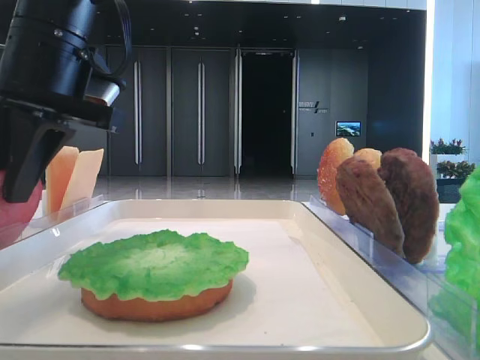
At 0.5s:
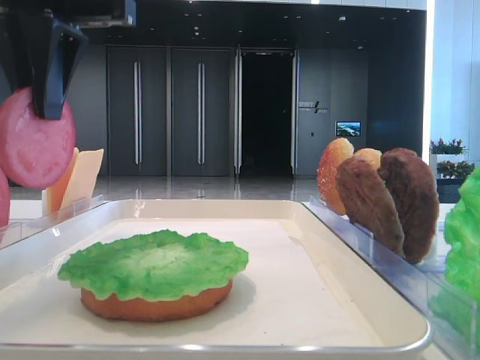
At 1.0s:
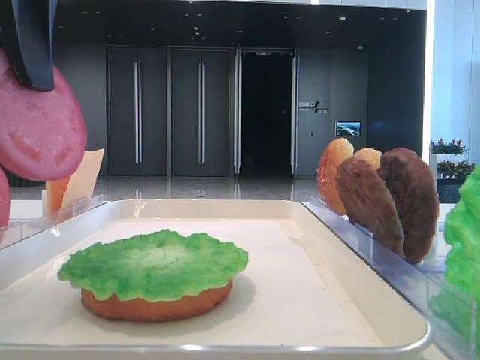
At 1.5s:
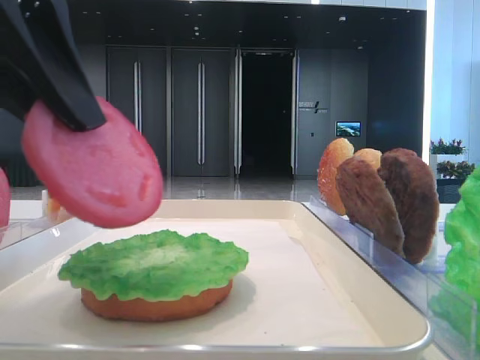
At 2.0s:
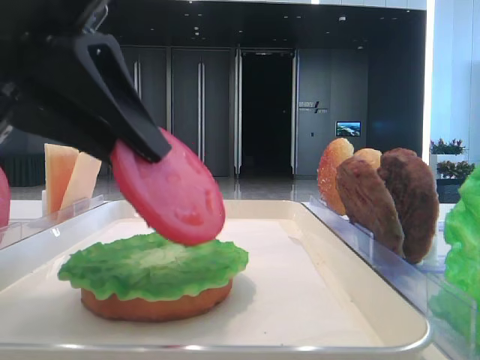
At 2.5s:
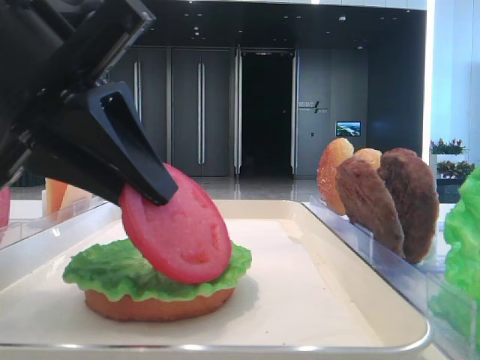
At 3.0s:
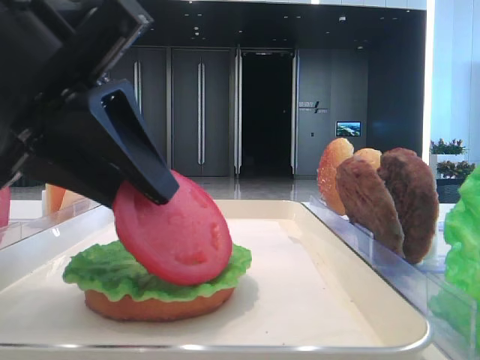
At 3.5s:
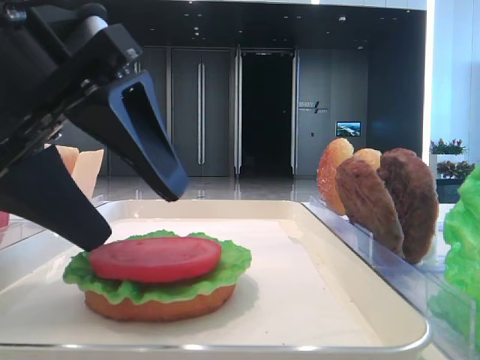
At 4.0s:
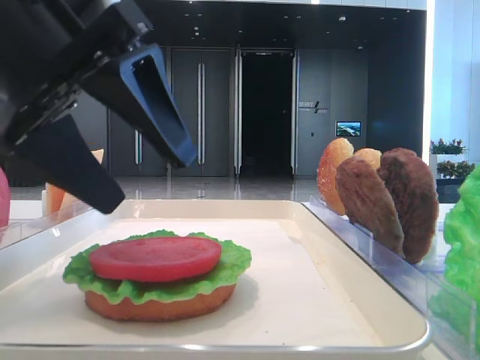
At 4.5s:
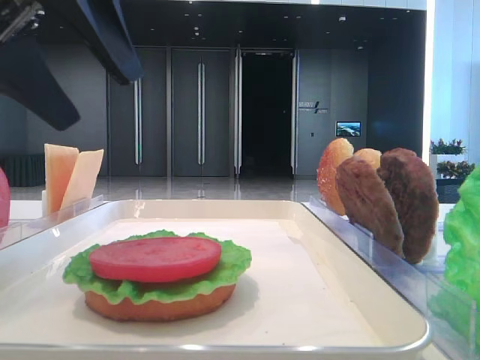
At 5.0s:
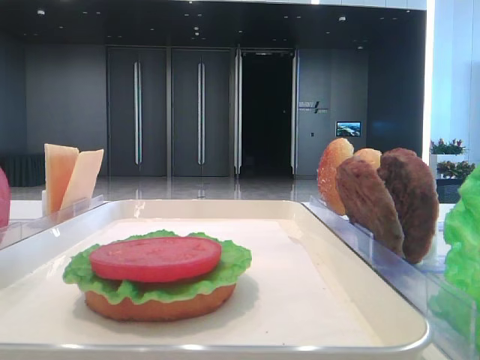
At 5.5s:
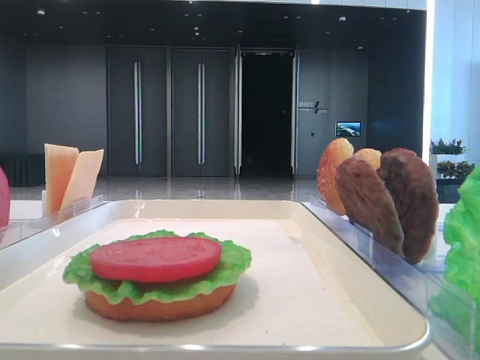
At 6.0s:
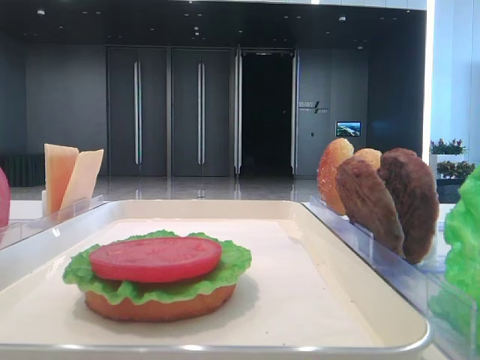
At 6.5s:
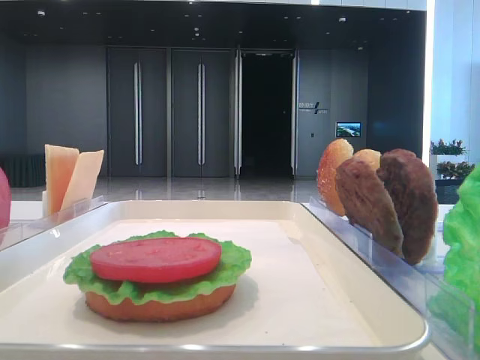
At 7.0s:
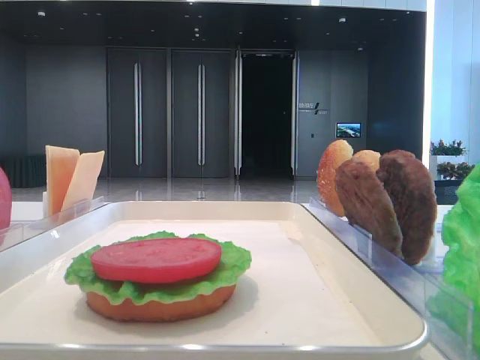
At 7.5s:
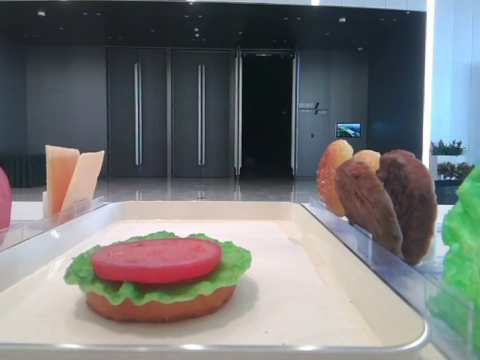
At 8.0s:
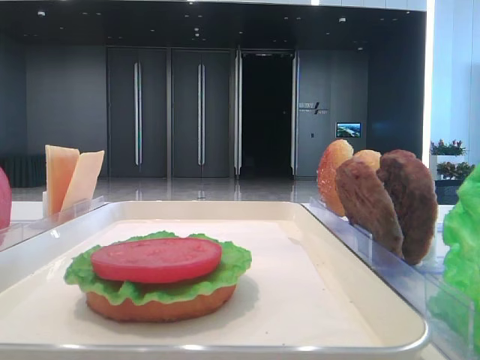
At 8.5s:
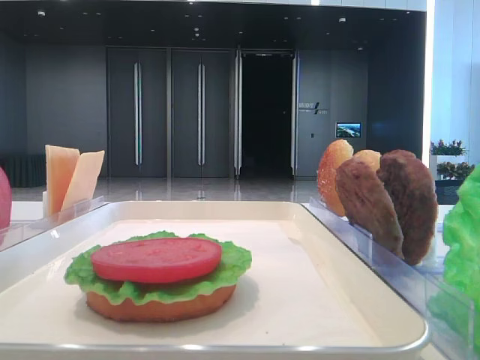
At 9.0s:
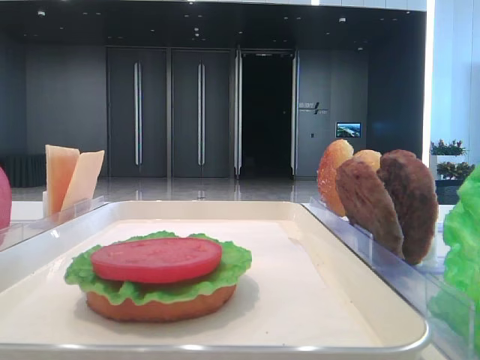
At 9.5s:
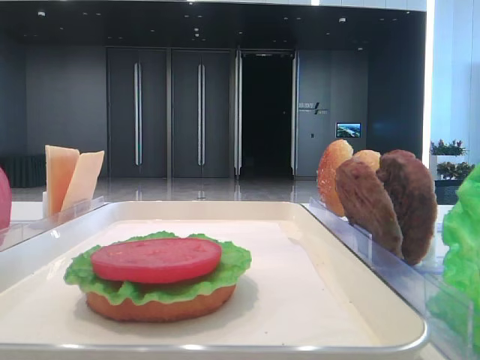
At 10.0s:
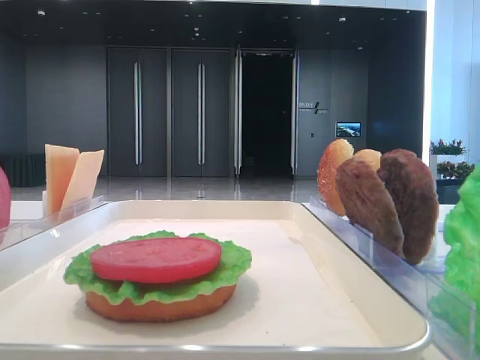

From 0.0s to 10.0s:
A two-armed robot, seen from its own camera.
Step, from 0.5s to 3.0s: Place the tomato slice on the lettuce leaf with the left hand.
From 0.0s to 2.0s: The left gripper moves backward, some 10 cm.
From 2.0s to 4.0s: The left gripper opens.
From 4.0s to 6.0s: The left gripper moves to the left, backward and upward, some 20 cm.
From 6.0s to 8.0s: The left gripper travels backward by about 15 cm, and closes its fingers.

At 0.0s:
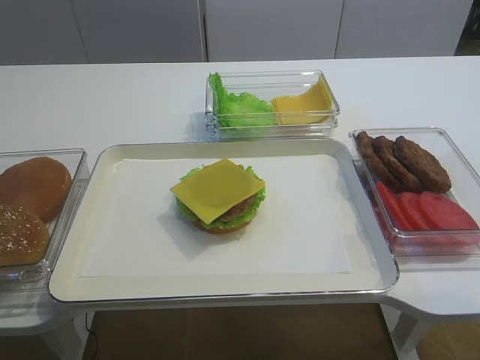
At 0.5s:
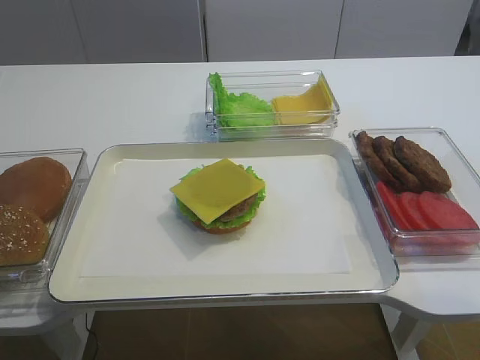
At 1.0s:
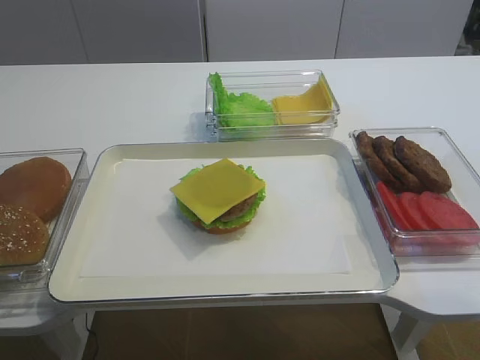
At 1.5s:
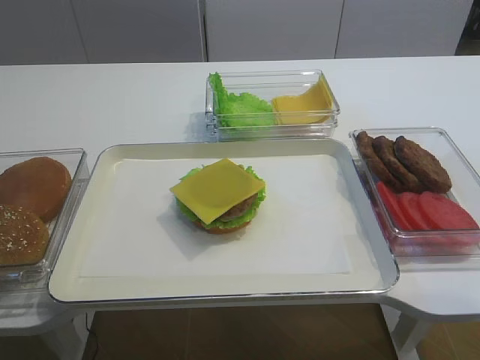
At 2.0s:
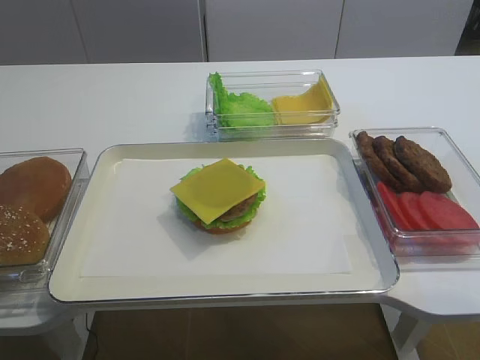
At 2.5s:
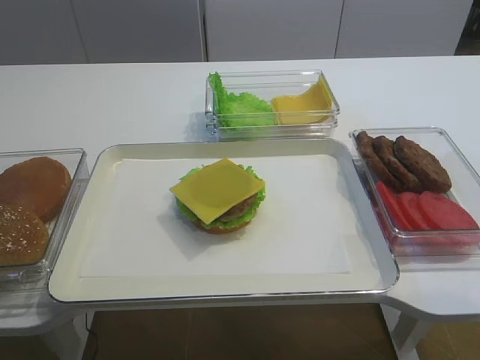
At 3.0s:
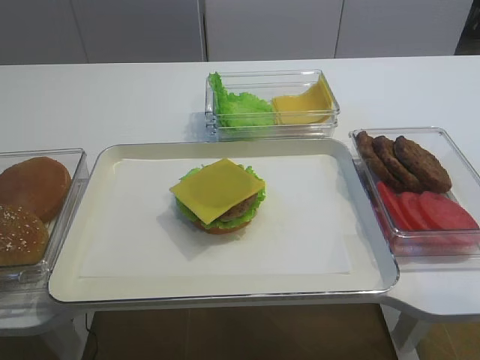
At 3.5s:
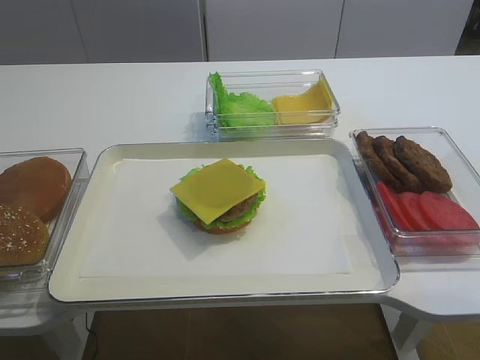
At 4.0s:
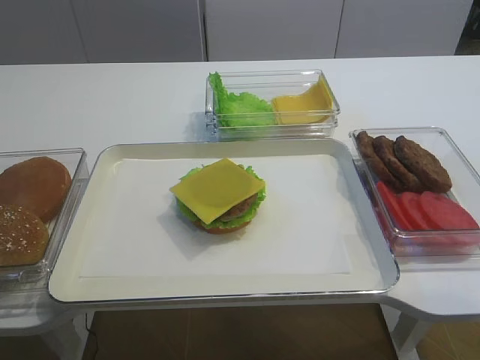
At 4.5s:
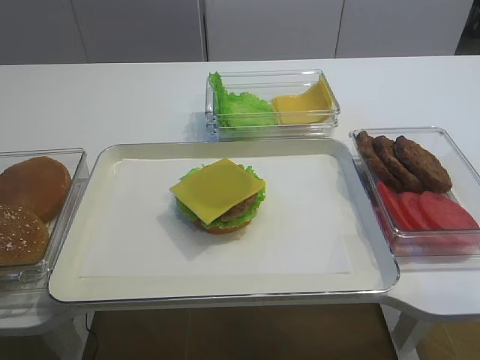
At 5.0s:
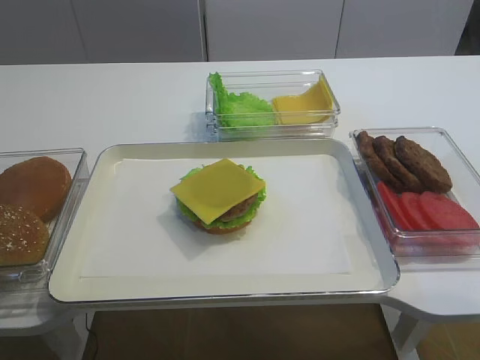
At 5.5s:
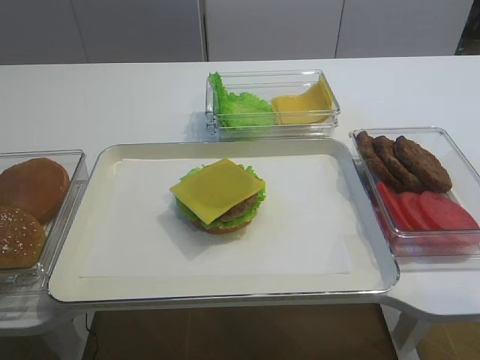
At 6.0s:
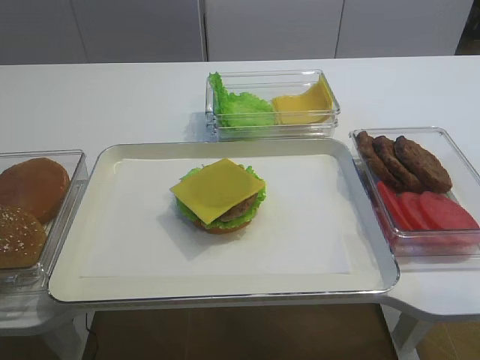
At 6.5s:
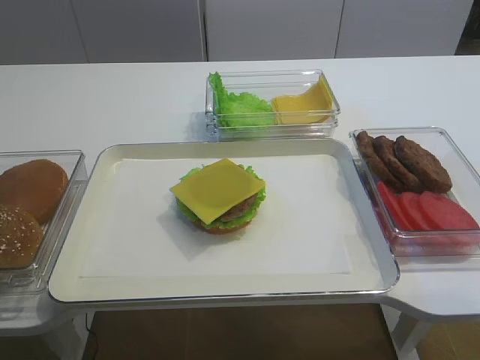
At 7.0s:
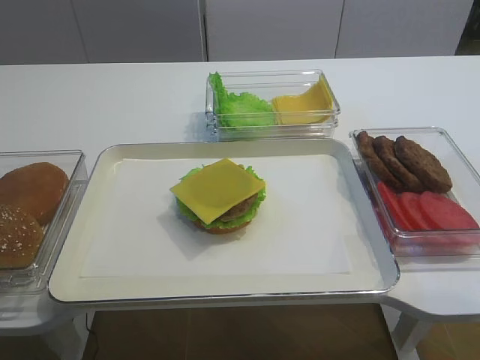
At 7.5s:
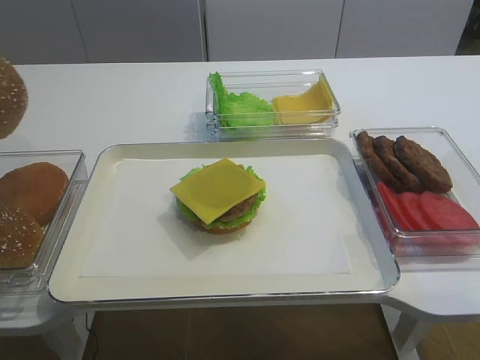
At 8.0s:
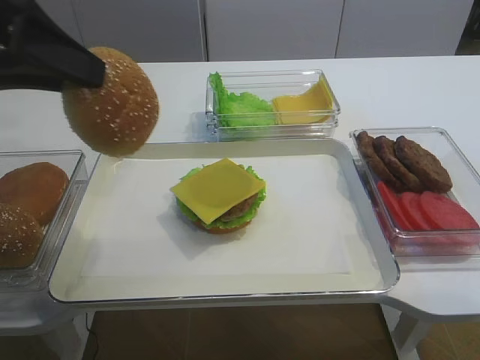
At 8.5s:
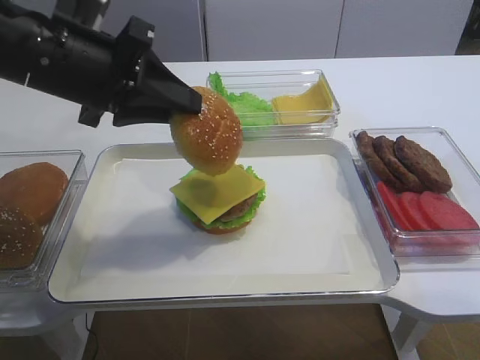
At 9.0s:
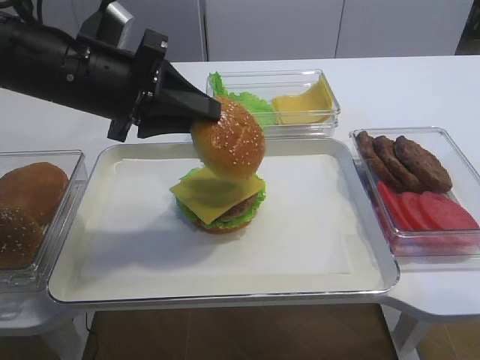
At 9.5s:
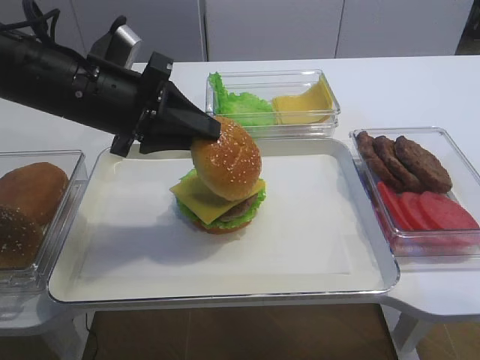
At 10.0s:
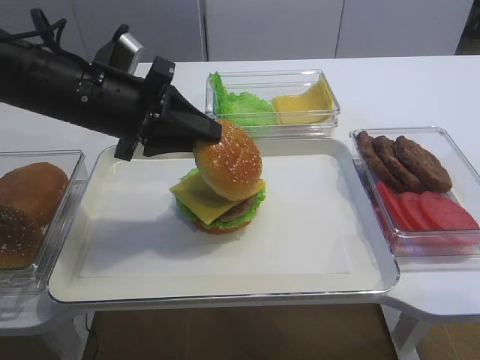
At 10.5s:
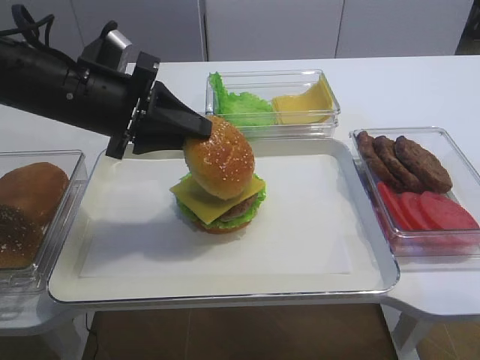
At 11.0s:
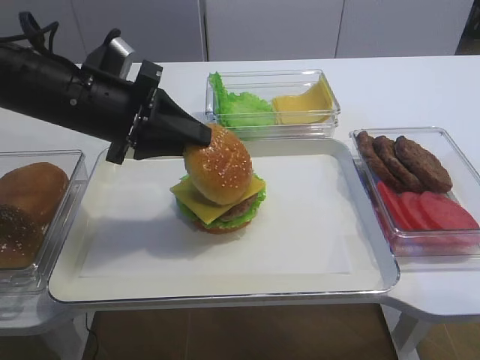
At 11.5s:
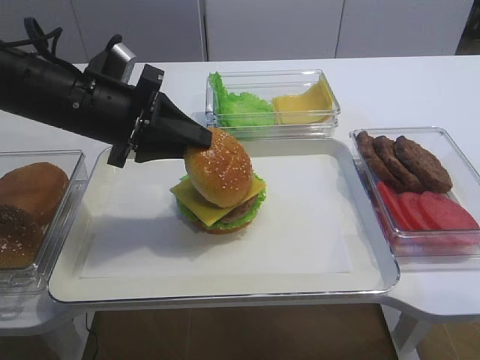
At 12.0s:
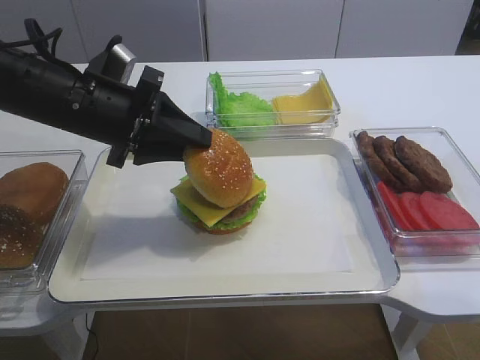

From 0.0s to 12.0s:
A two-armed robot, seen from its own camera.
From 6.0s to 8.0s: The left gripper shifts about 20 cm to the right and upward.
From 8.0s to 10.0s: The left gripper travels downward, forward and to the right by approximately 15 cm.
From 10.0s to 12.0s: The grippers stay close to where they were, moving slightly.

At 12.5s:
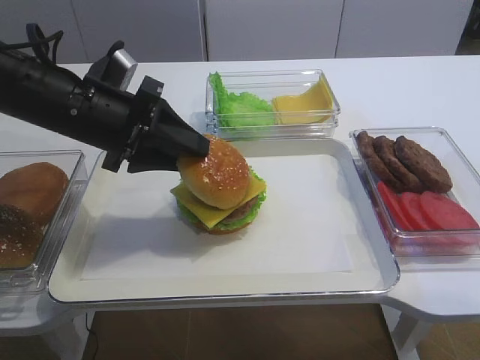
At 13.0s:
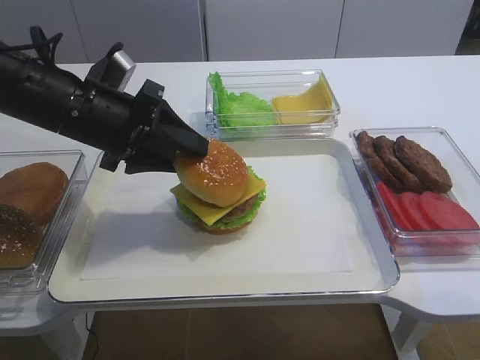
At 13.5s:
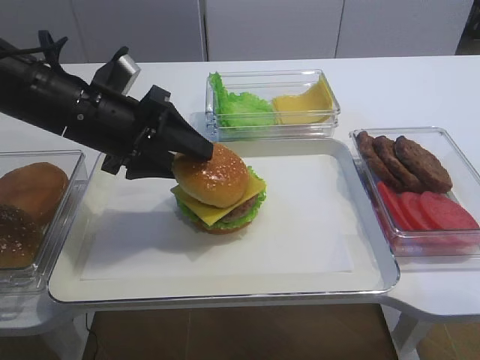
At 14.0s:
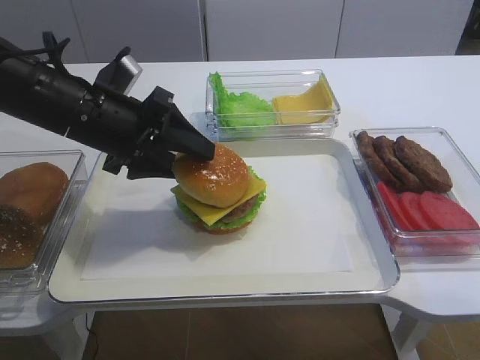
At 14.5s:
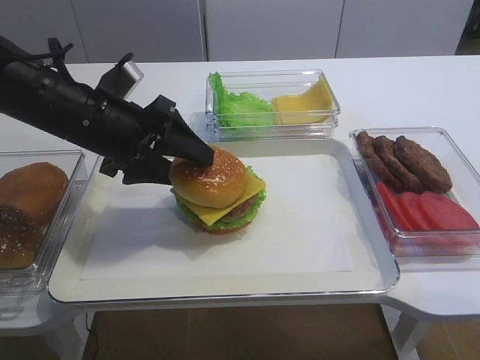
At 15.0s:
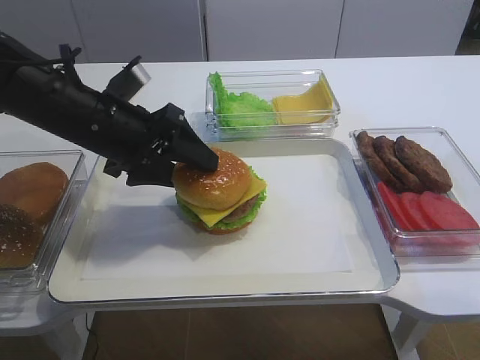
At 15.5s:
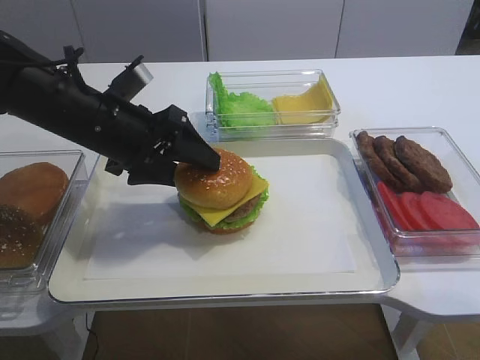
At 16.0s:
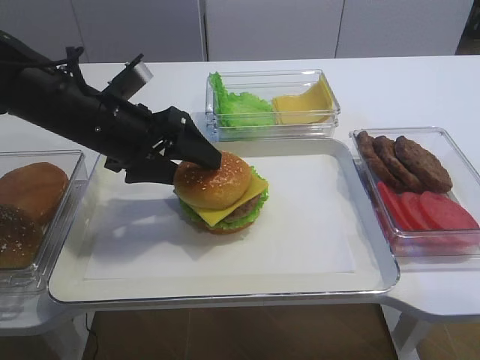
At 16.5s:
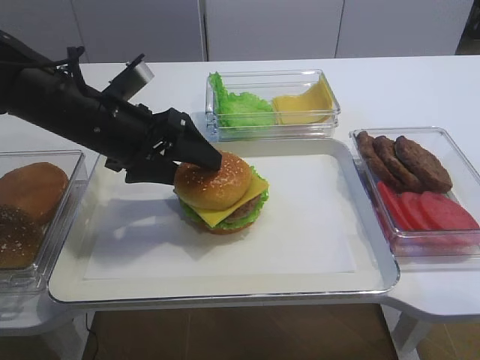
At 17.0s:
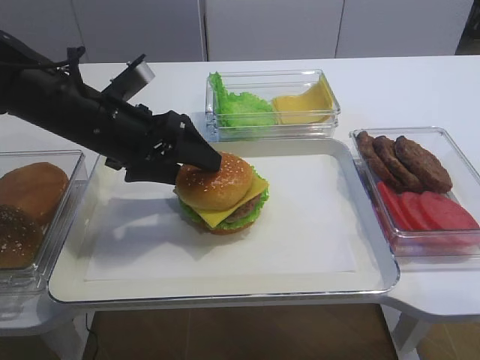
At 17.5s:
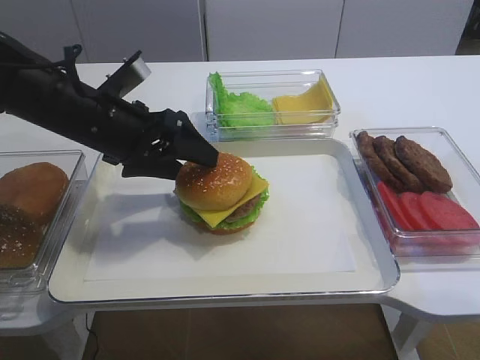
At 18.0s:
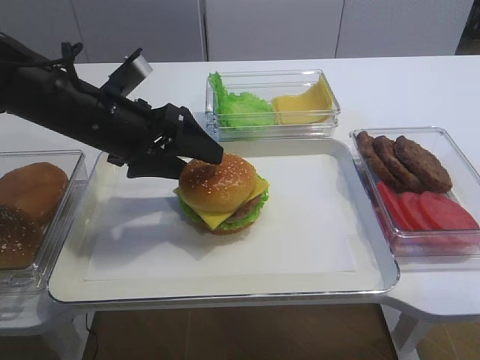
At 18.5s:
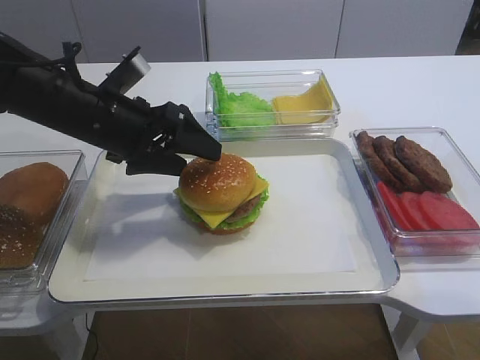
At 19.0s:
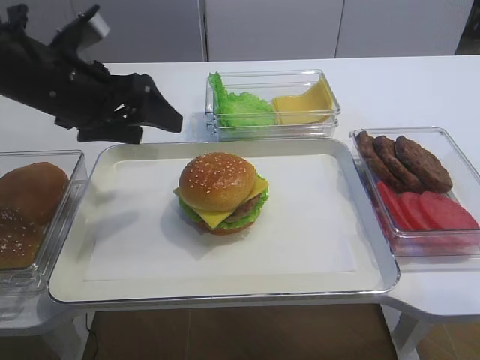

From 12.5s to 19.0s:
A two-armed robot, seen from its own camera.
Step, from 12.5s to 18.5s: Place the hamburger lid on the cheese slice with the left gripper.
From 12.5s to 14.5s: The left gripper opens its fingers.
From 14.5s to 17.0s: The grippers make only small movements.
From 17.0s to 19.0s: The left gripper ends up about 5 cm from where it was.
